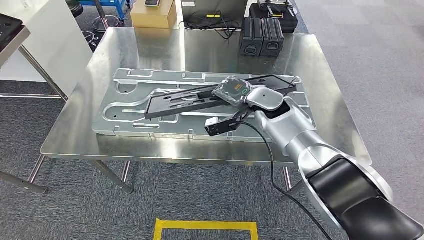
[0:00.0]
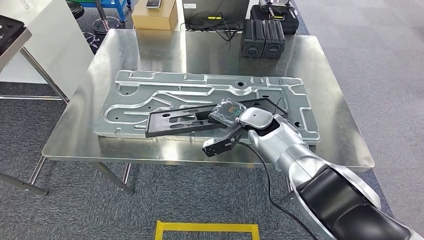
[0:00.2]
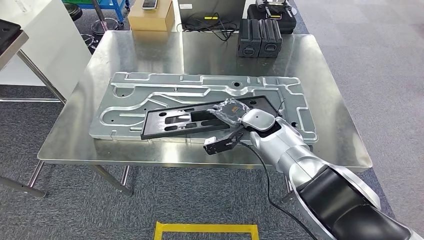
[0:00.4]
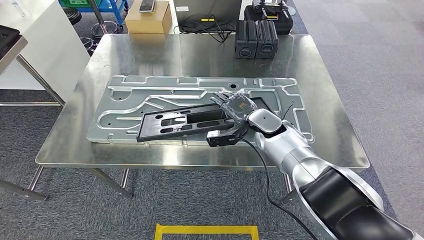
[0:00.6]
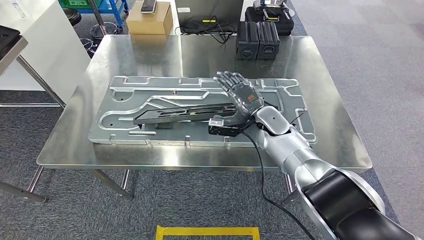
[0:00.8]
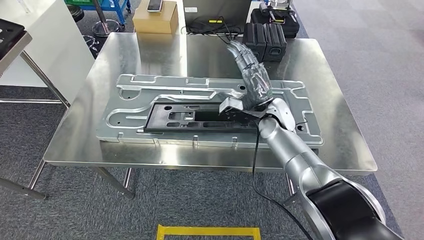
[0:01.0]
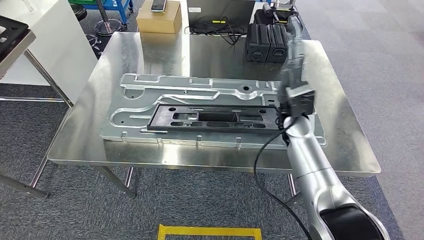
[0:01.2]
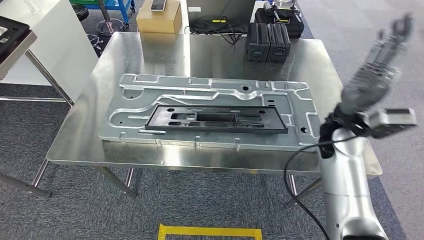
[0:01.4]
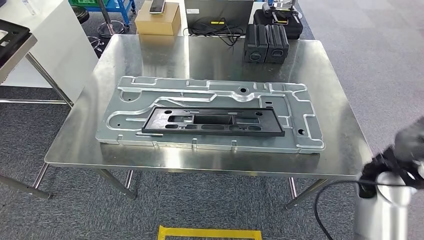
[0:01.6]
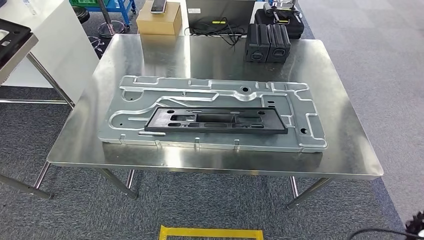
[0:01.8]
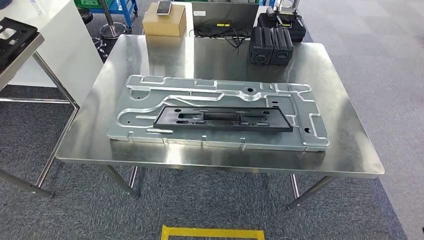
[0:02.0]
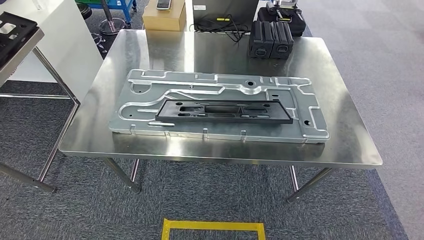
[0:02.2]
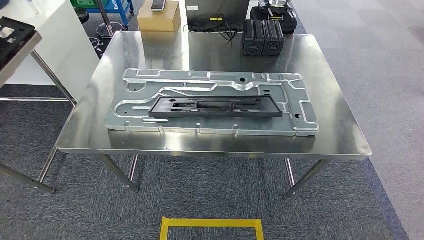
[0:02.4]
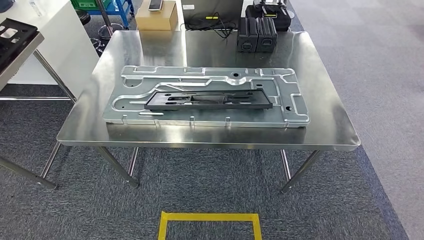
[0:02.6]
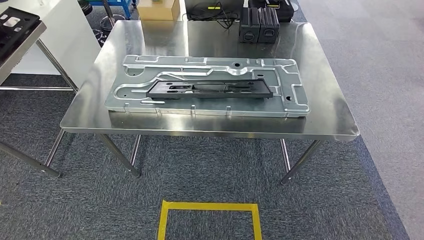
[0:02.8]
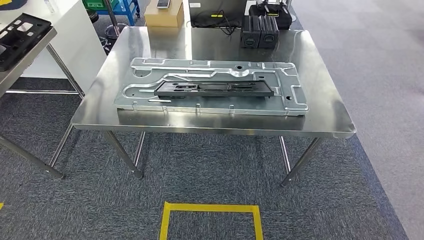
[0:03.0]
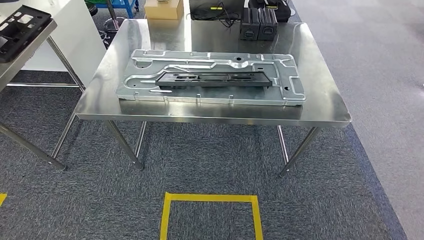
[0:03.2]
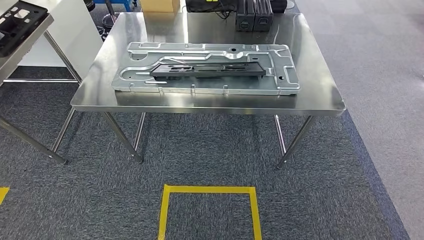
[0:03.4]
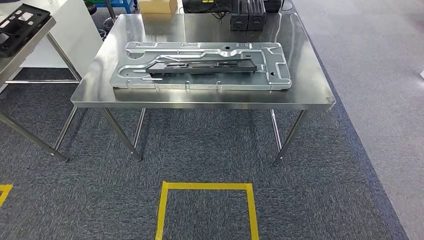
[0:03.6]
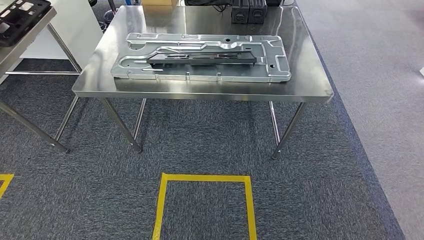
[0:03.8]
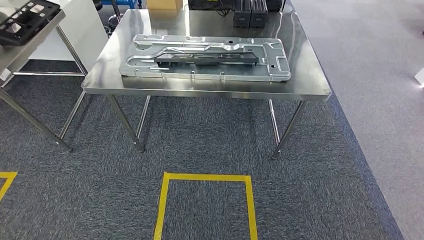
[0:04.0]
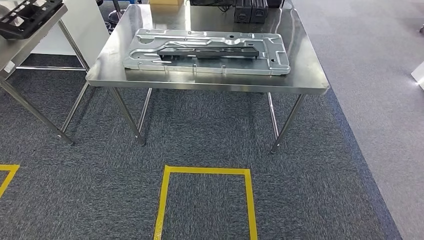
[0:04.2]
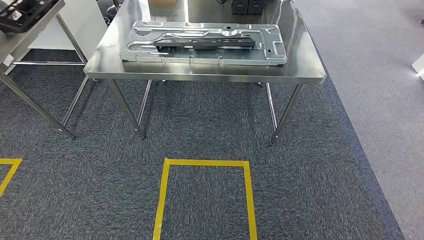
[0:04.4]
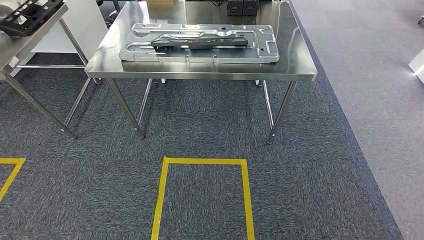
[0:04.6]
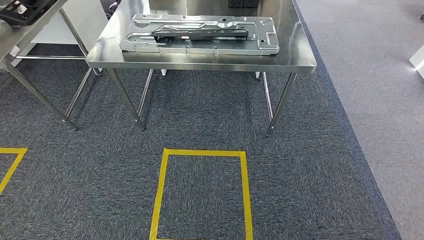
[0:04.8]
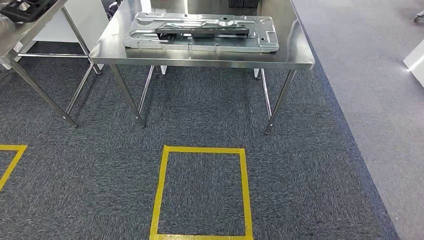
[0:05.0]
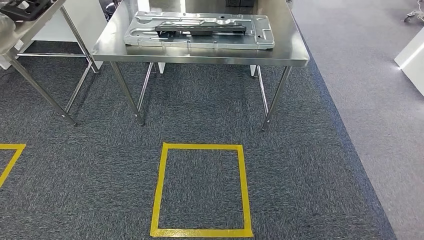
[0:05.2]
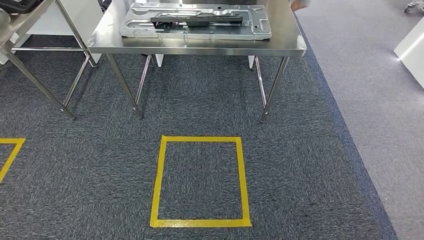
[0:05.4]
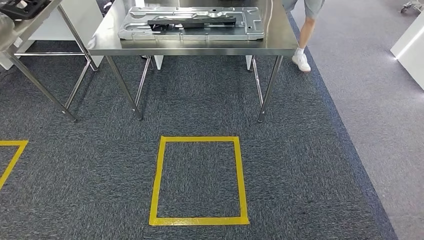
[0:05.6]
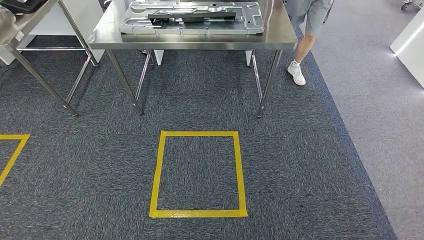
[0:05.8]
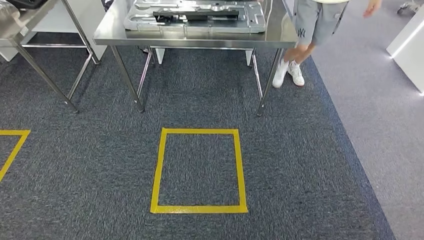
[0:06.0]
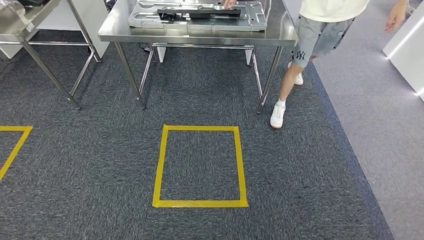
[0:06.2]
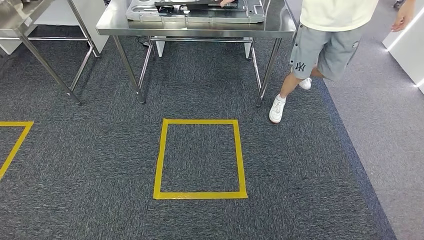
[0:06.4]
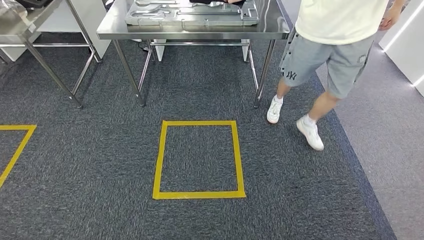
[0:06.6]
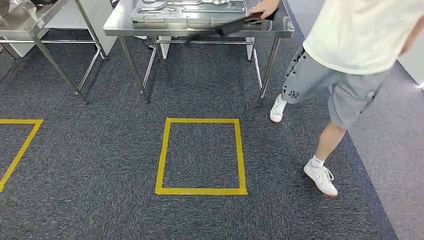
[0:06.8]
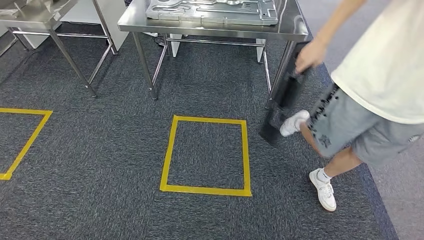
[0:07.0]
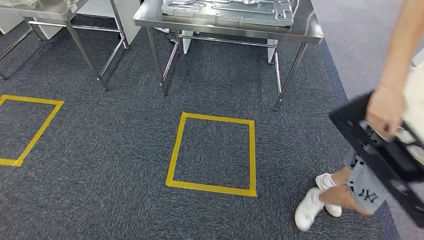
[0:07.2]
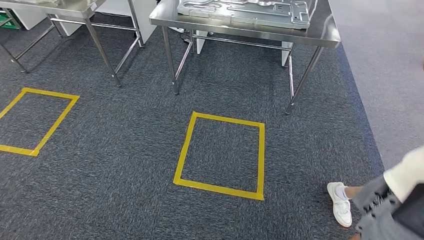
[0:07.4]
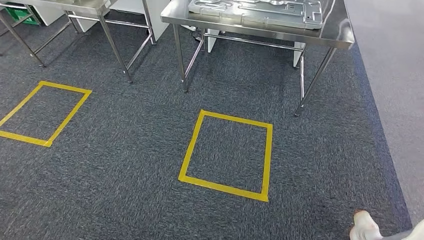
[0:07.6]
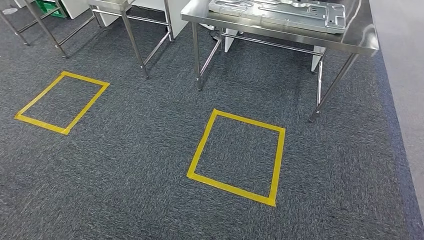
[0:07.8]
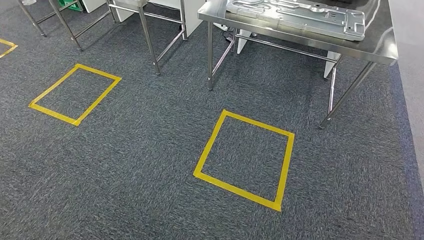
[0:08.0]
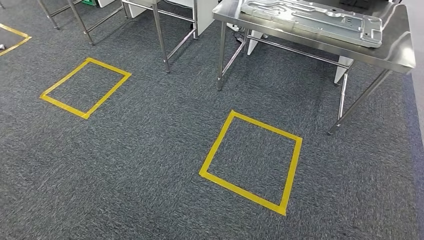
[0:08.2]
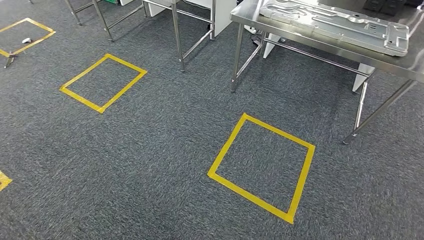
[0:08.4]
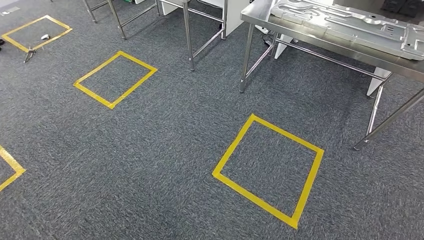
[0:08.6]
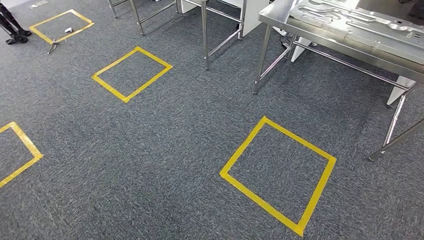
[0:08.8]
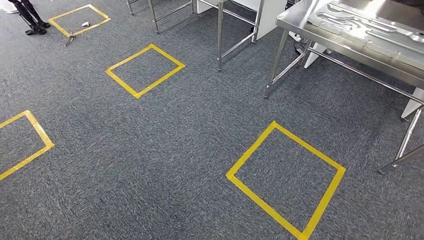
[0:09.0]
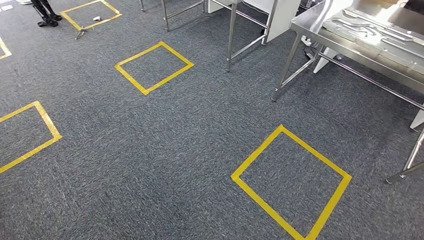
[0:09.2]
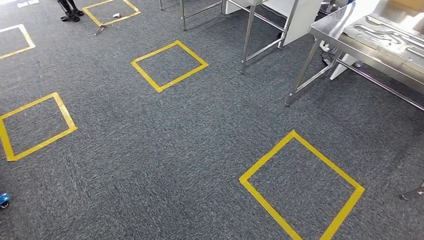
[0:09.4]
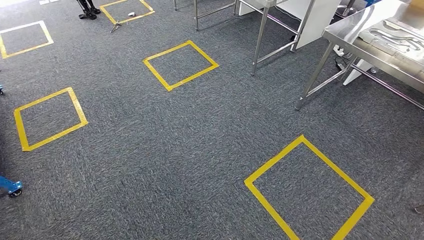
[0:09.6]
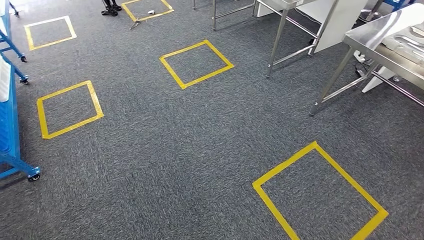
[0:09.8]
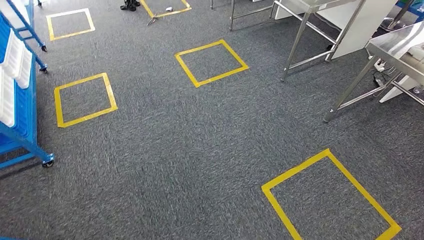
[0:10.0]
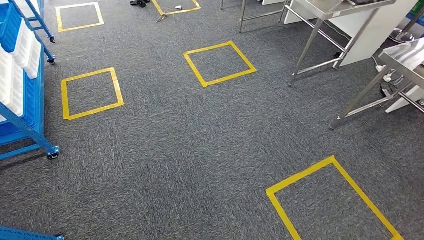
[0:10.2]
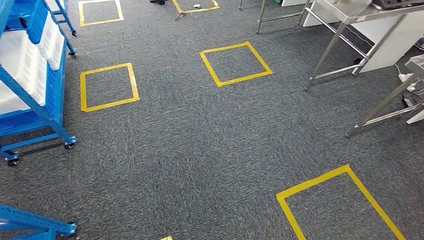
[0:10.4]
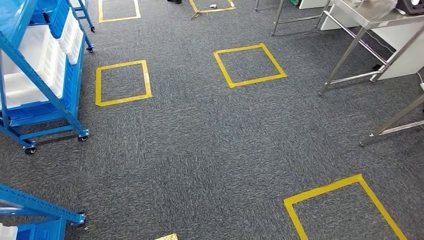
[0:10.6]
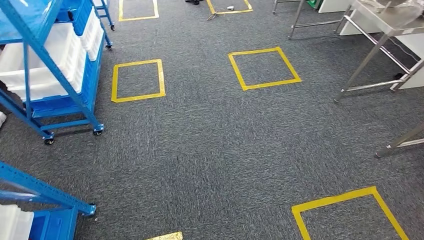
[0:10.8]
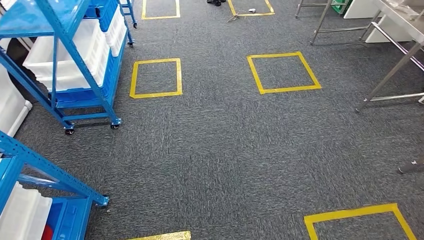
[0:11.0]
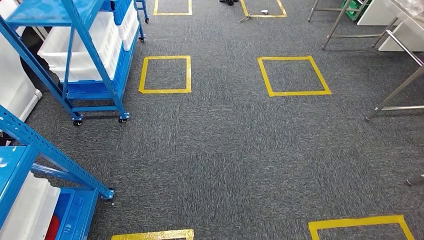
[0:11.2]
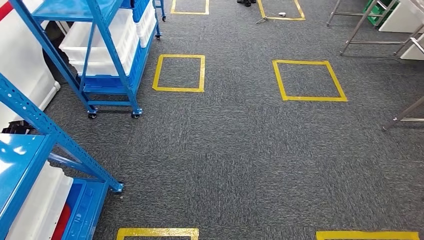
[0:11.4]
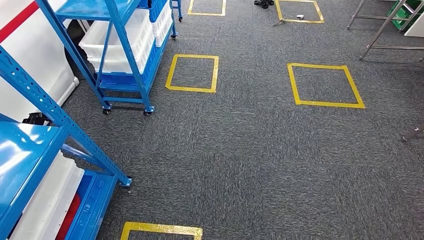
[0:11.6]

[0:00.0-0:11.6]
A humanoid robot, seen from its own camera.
Step, 0:00.0 to 0:02.4: Insert the large material into the corresponding slot on the workbench.

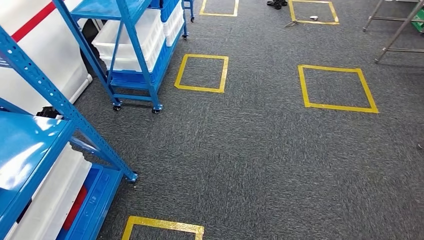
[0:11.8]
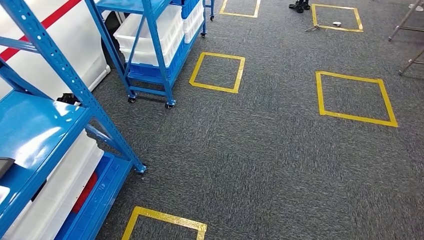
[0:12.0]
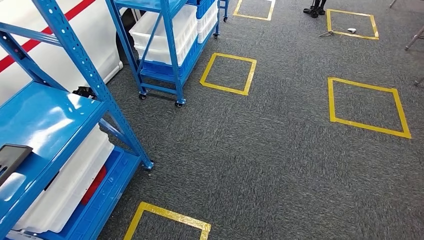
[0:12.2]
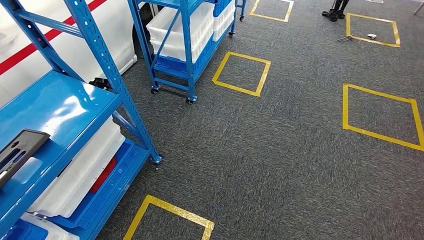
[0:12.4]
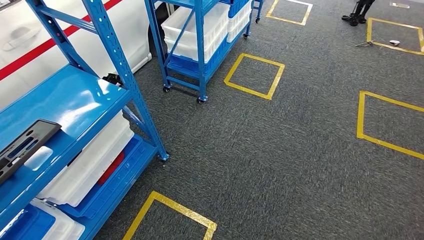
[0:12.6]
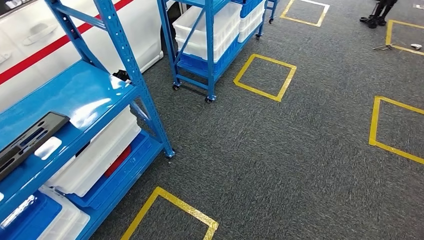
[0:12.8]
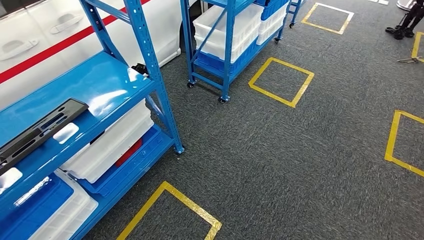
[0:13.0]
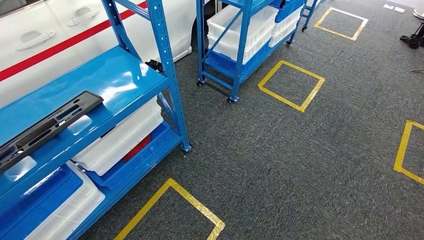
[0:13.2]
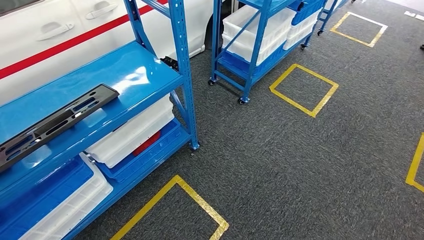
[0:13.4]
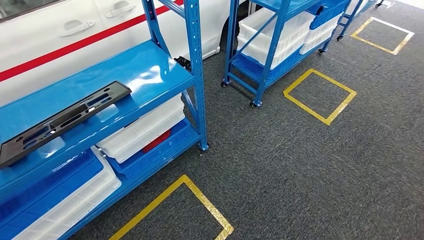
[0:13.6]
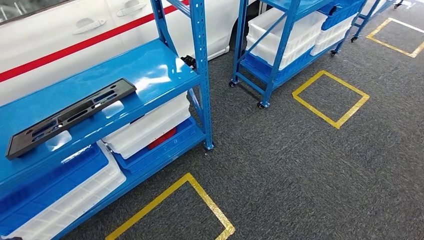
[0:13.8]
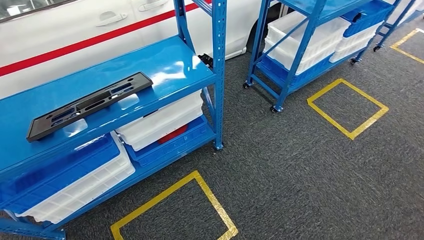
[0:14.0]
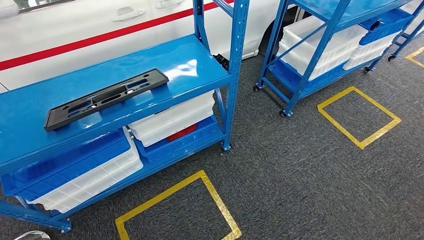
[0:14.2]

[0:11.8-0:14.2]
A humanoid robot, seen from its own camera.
Step, 0:11.8 to 0:14.2: Move to the initial position of the shelf.
